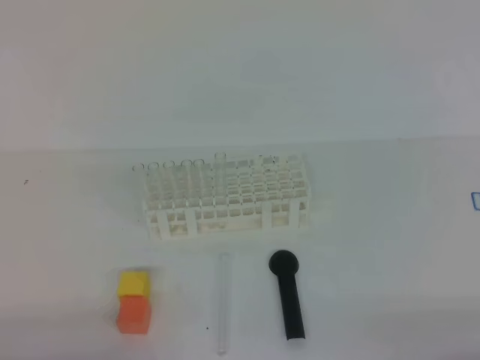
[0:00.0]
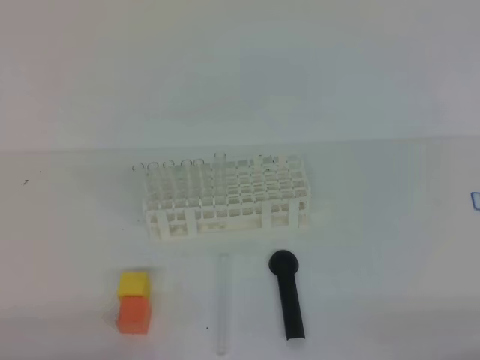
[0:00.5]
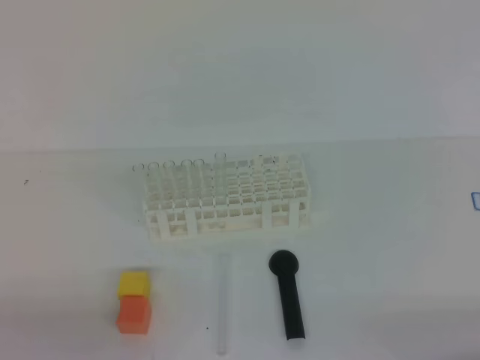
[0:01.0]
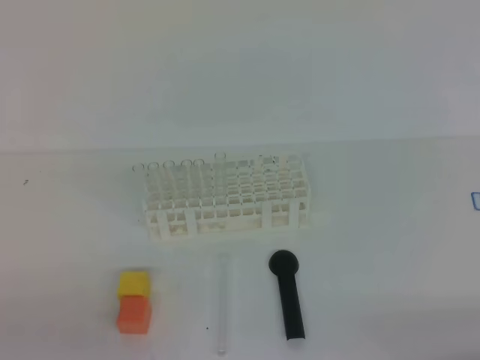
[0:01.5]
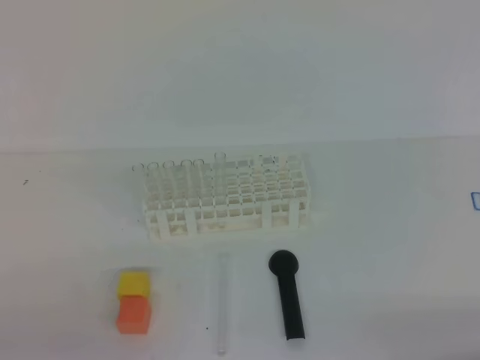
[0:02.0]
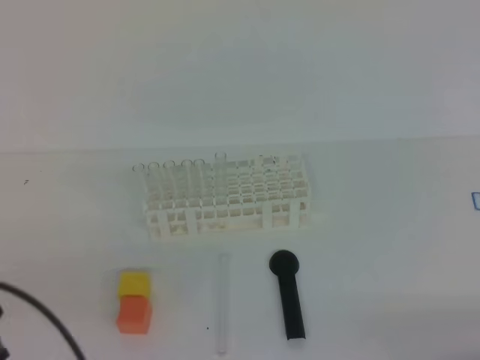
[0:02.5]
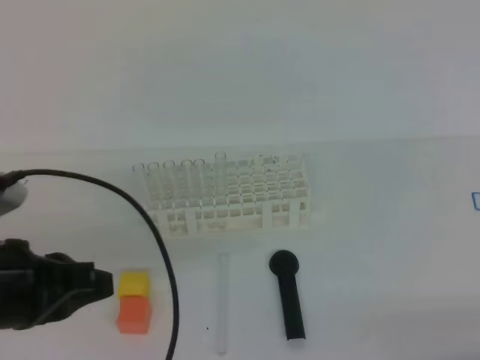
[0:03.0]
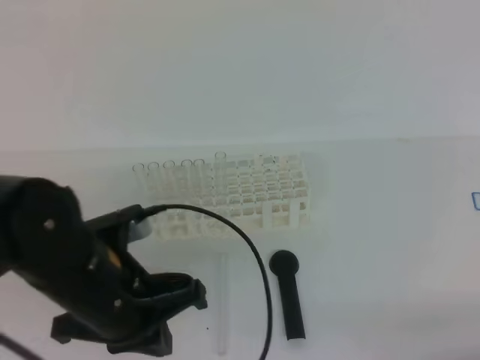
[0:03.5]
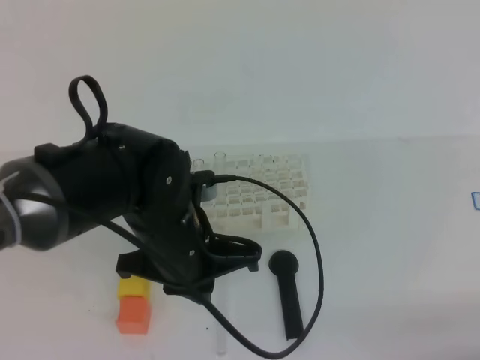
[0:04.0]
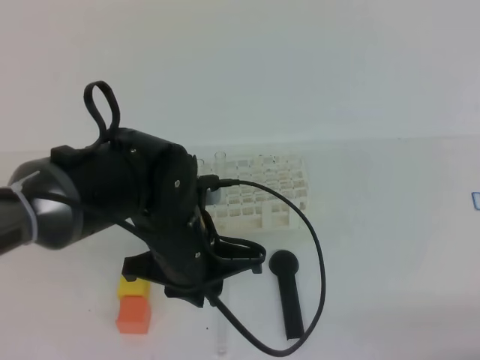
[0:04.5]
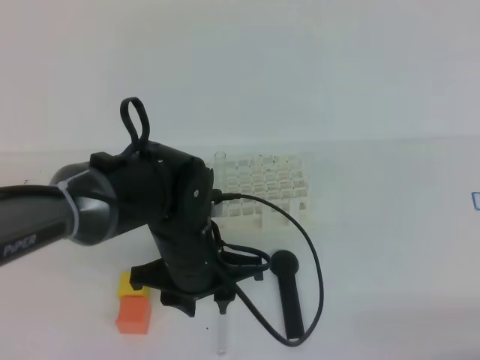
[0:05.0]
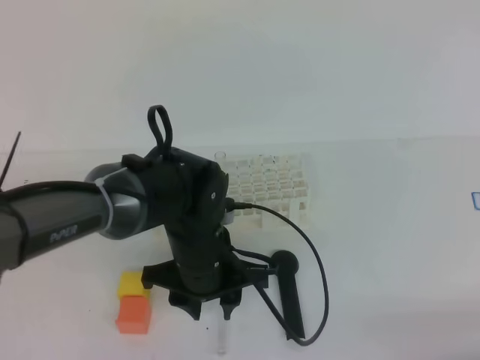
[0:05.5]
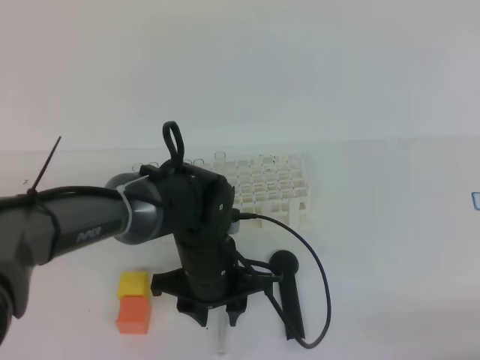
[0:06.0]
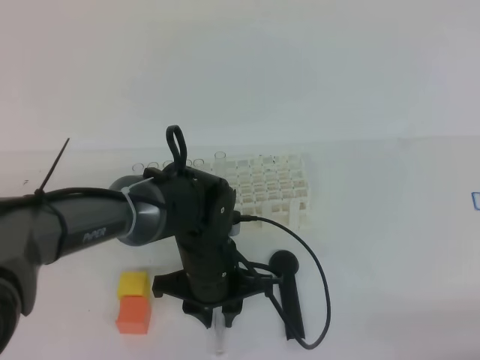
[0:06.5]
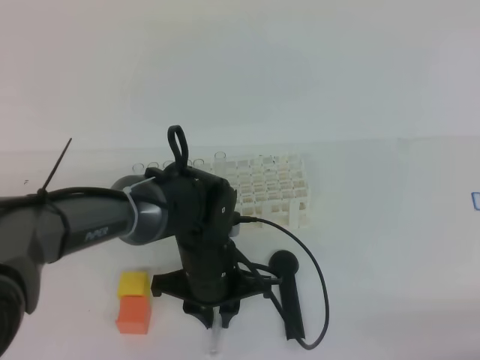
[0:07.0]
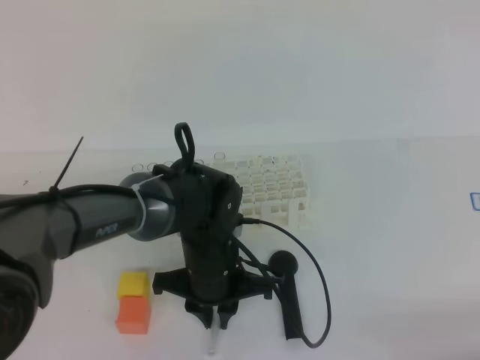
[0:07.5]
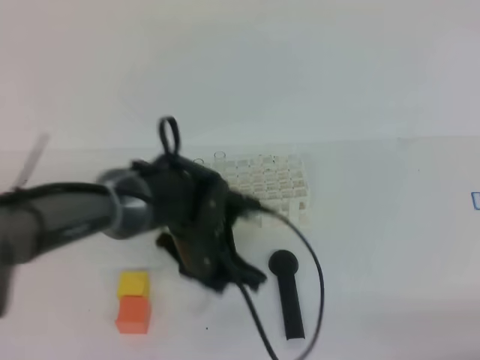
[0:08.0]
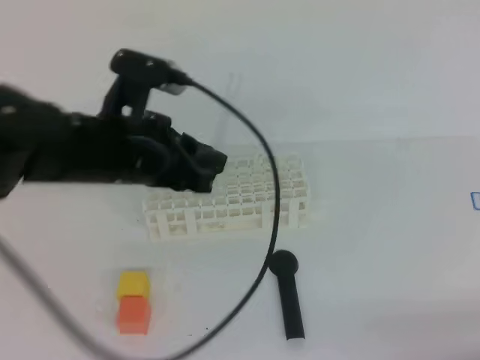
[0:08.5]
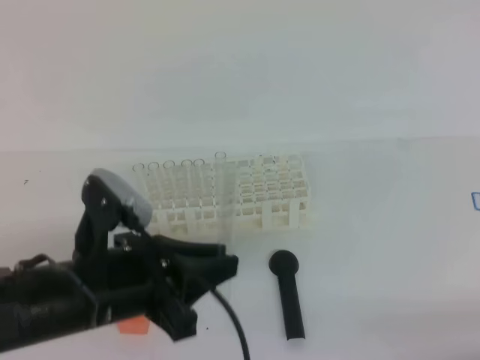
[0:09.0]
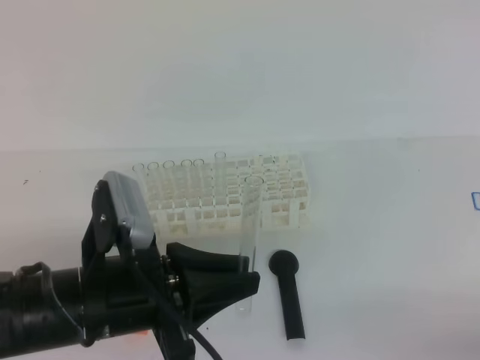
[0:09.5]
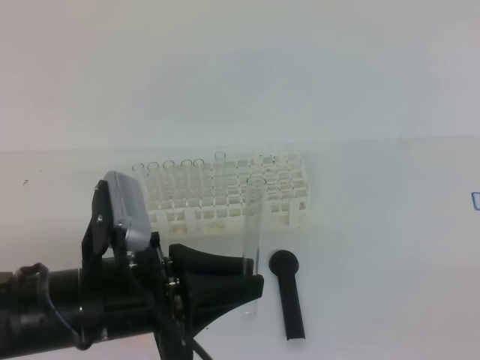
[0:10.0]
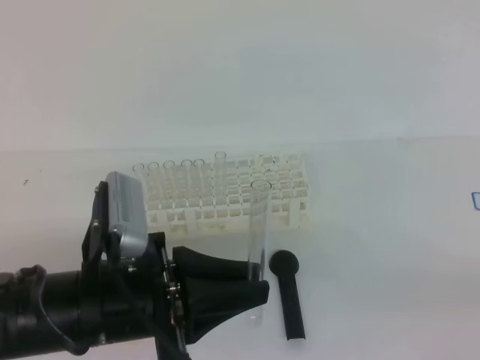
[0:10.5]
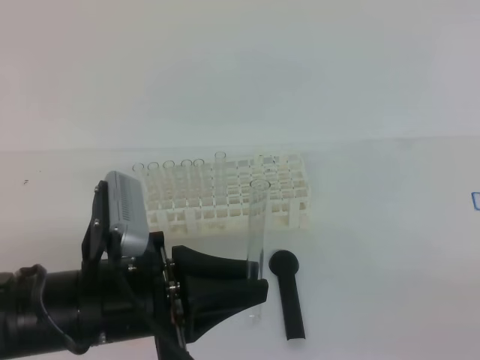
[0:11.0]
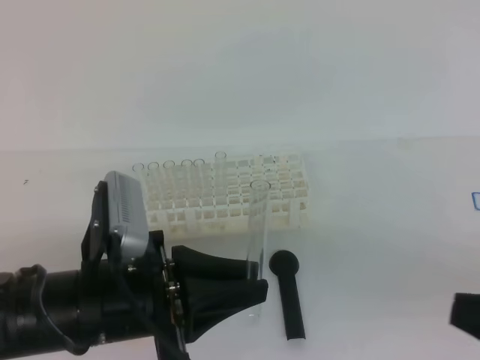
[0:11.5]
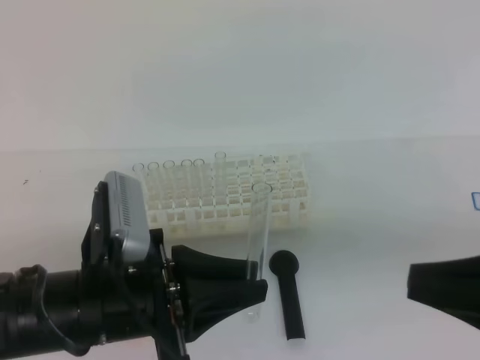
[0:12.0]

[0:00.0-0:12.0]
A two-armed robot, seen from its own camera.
0:02.0 to 0:04.0: The left gripper travels forward and to the right by roughly 30 cm.
0:04.0 to 0:06.0: The left gripper shifts some 10 cm downward, and opens.
0:06.0 to 0:08.0: The left gripper closes its fingers.
0:08.0 to 0:10.0: The right gripper heads upward, covering about 5 cm, while the left gripper goes some 20 cm backward, to the left and upward.
0:10.0 to 0:12.0: The right gripper moves to the left, forward and upward, approximately 15 cm.

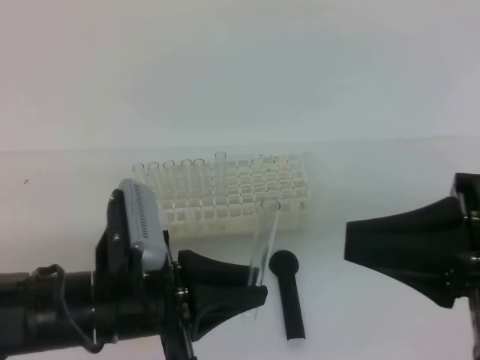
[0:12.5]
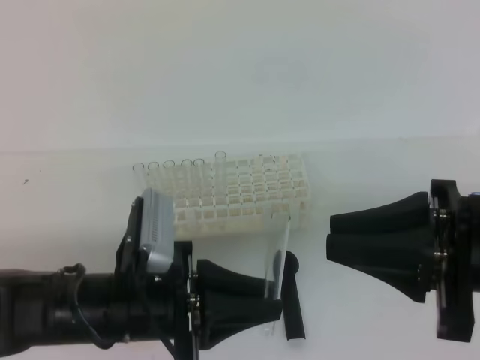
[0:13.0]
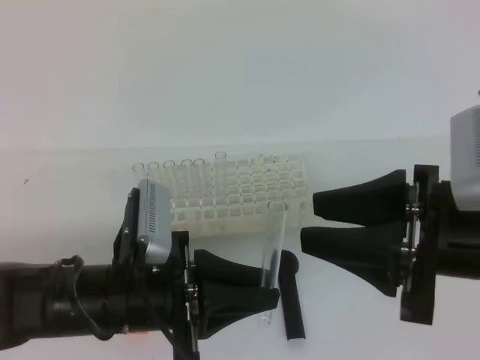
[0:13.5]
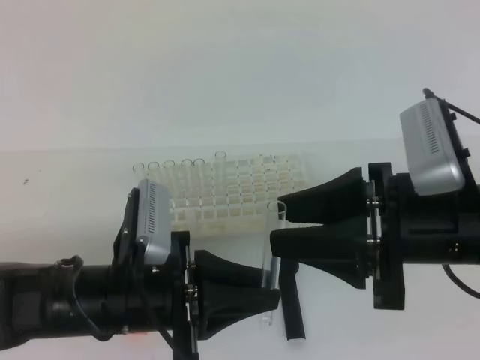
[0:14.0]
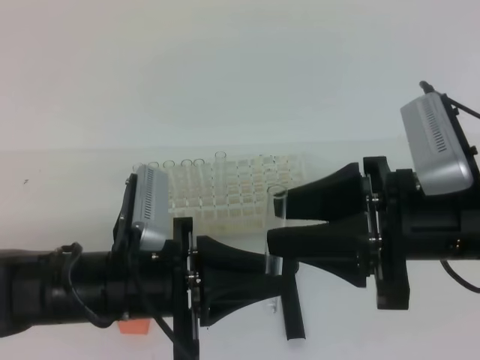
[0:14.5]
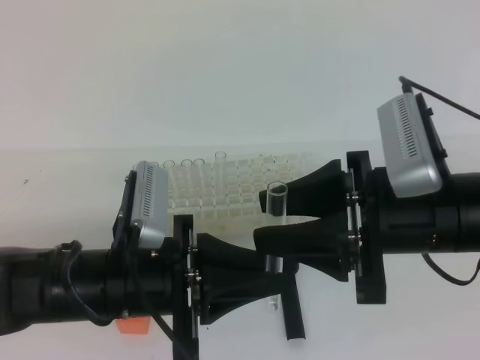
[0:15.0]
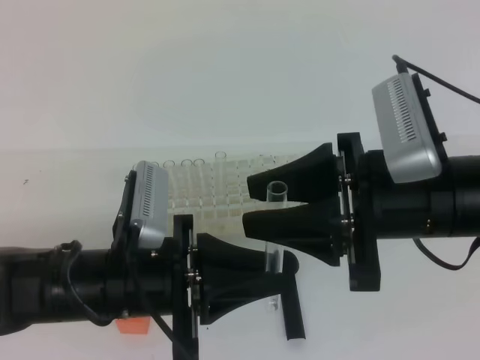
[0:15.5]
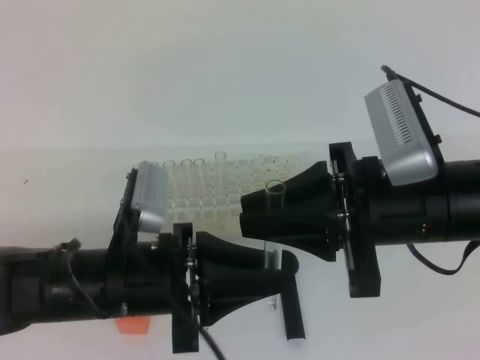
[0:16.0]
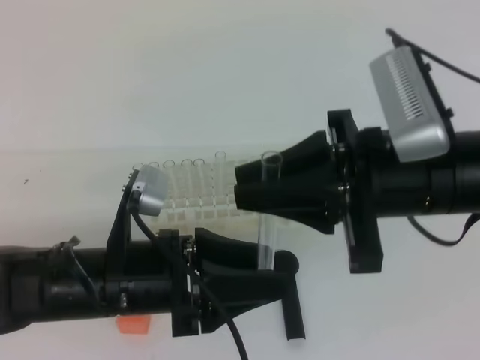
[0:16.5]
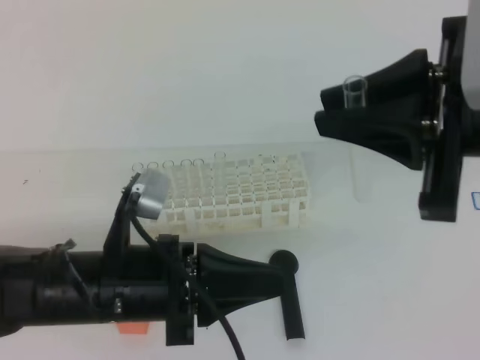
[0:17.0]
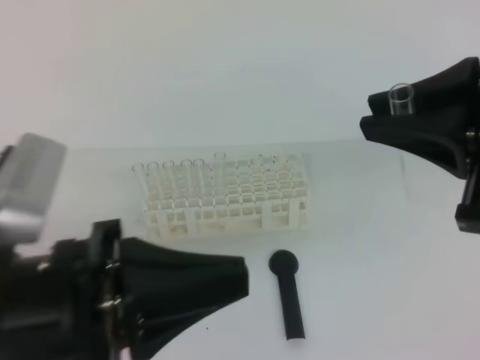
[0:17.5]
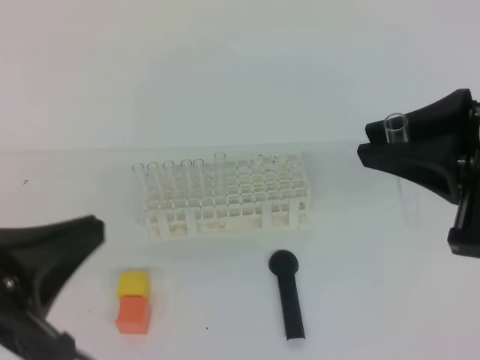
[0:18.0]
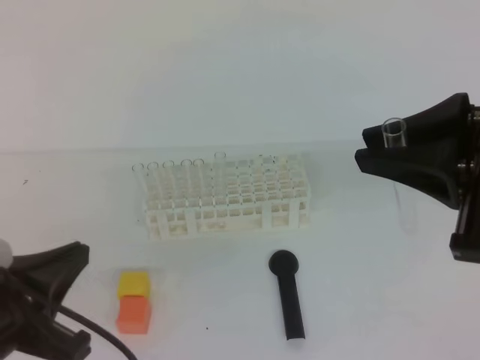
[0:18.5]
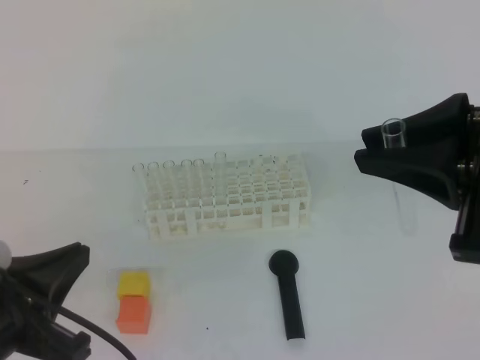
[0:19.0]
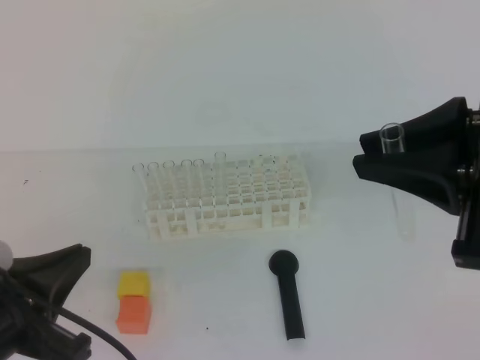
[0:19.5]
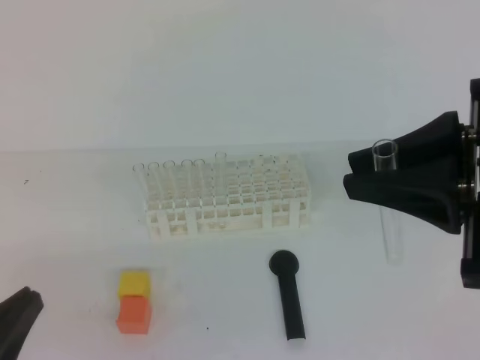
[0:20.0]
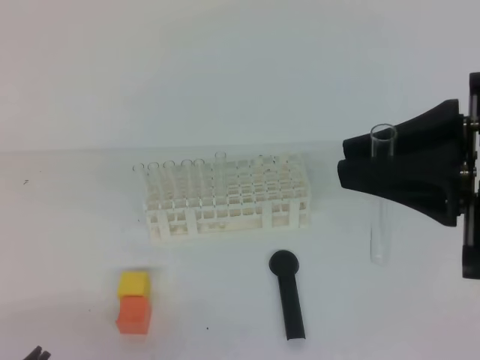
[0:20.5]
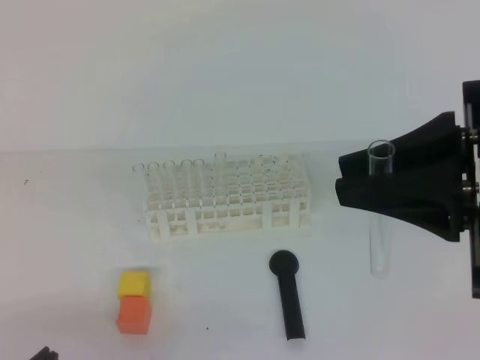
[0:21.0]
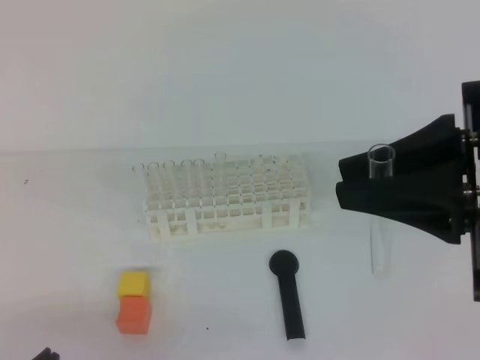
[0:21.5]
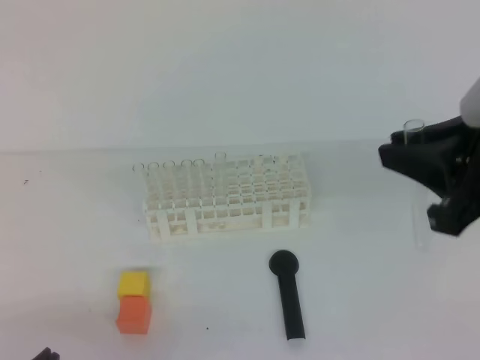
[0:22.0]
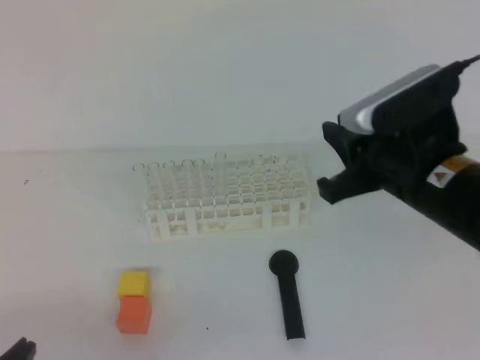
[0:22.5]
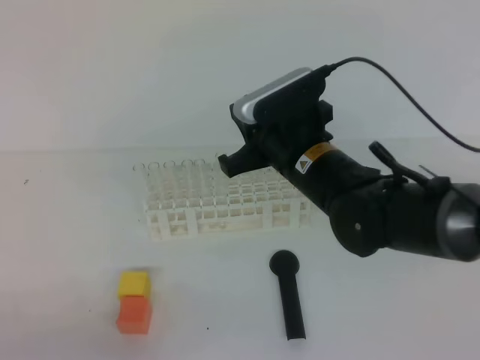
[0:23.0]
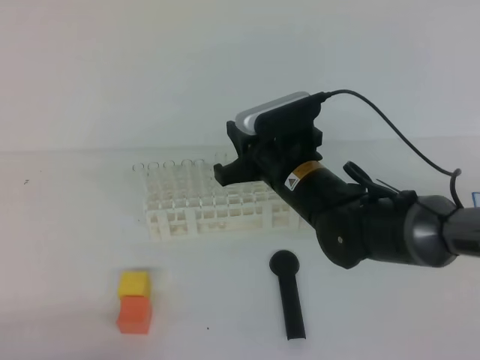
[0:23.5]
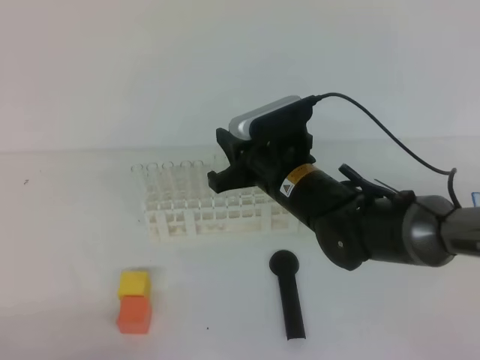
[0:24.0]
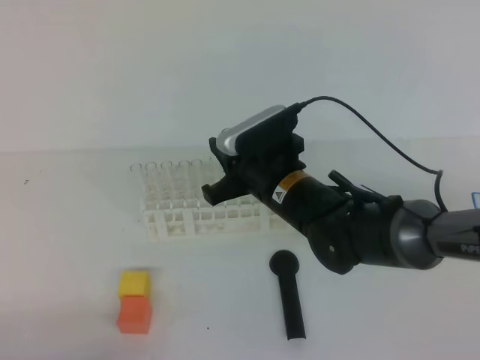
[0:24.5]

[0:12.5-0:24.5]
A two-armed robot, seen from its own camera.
0:12.5 to 0:14.5: The right gripper goes approximately 5 cm to the left and forward, and opens.
0:14.5 to 0:16.5: The right gripper closes up; the left gripper opens up.
0:16.5 to 0:18.5: The left gripper moves to the left and backward, approximately 15 cm, and closes up. Meanwhile the right gripper heads to the right and upward, covering about 10 cm.
0:18.5 to 0:20.5: The left gripper heads downward and backward, covering roughly 10 cm.
0:20.5 to 0:22.5: The right gripper heads downward and forward, covering roughly 10 cm.
0:22.5 to 0:24.5: The right gripper is displaced to the left, downward and forward by about 20 cm.

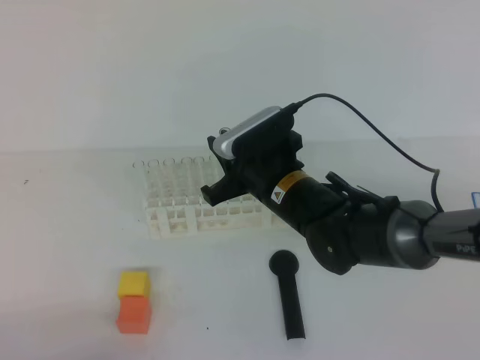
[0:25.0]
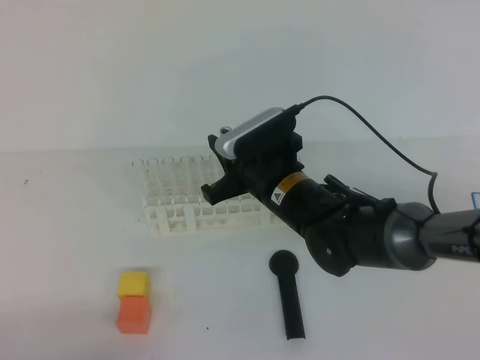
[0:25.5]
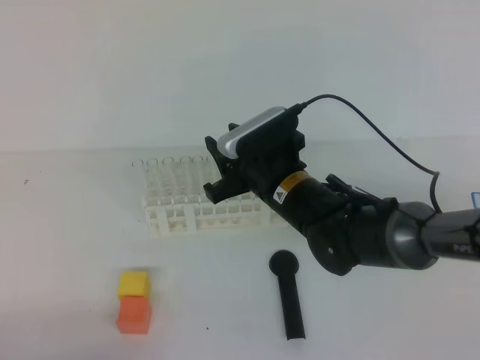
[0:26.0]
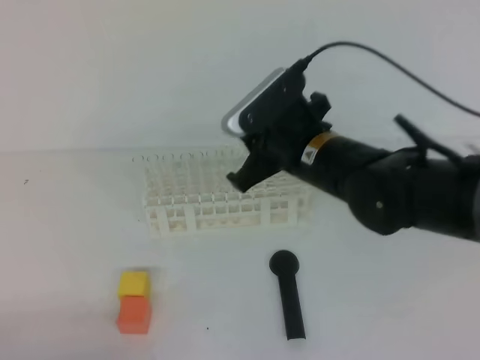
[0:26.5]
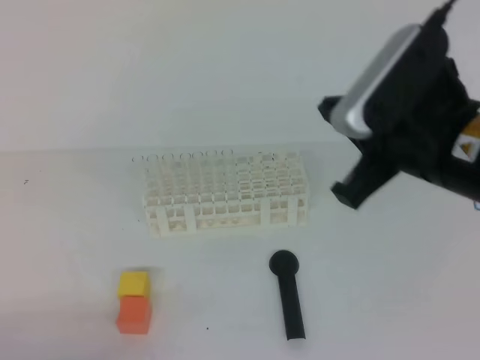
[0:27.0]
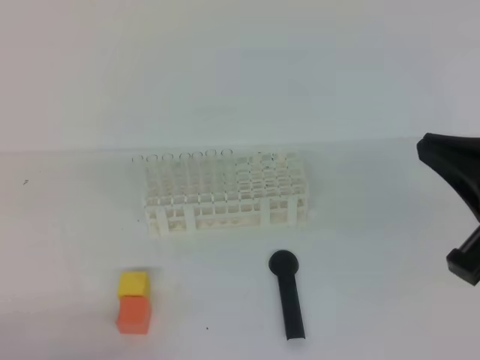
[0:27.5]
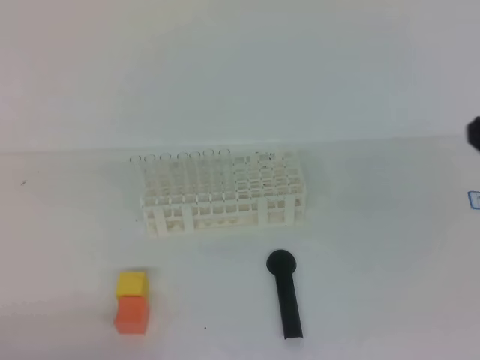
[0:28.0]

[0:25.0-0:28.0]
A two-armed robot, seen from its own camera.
0:25.0 to 0:26.5: The right gripper is displaced upward by some 5 cm, and opens, then closes once more.
0:26.5 to 0:28.0: The right gripper heads to the right, backward and upward, covering about 25 cm, and closes.
